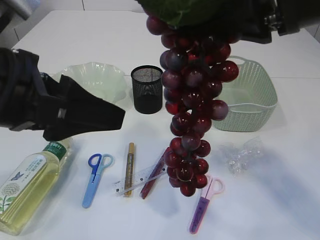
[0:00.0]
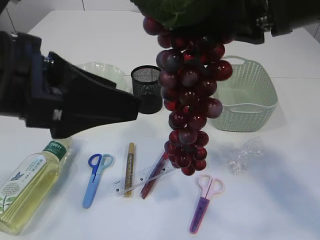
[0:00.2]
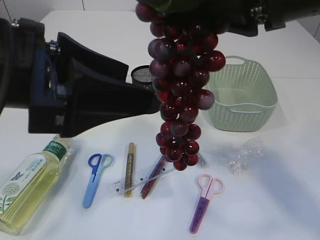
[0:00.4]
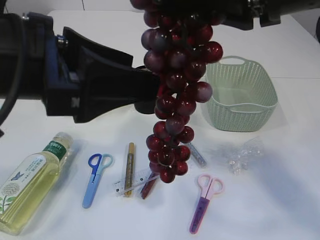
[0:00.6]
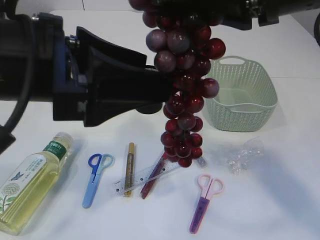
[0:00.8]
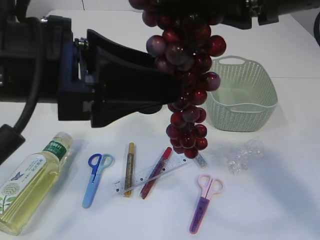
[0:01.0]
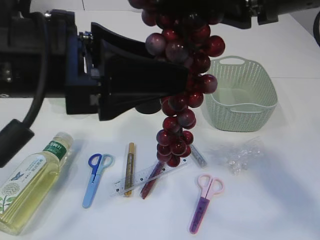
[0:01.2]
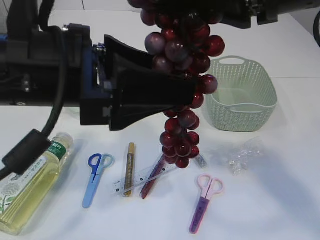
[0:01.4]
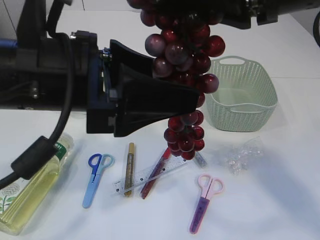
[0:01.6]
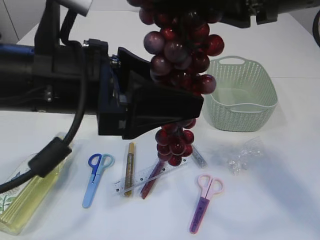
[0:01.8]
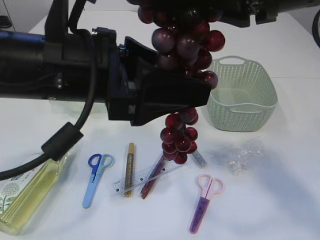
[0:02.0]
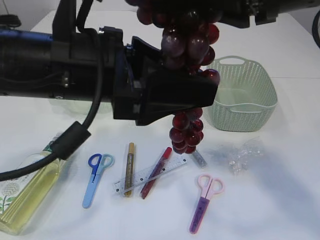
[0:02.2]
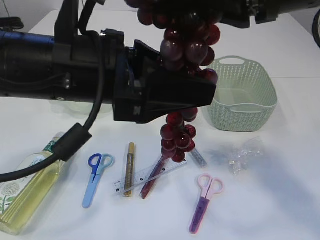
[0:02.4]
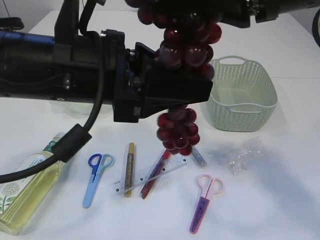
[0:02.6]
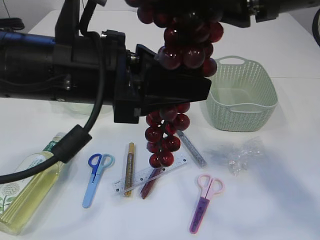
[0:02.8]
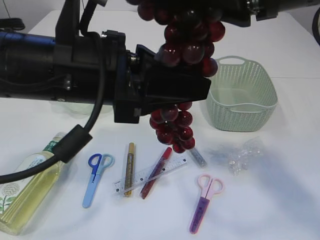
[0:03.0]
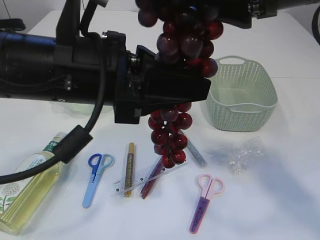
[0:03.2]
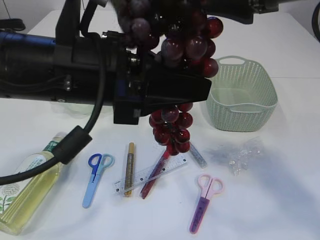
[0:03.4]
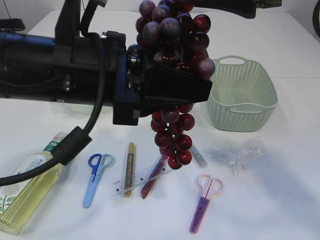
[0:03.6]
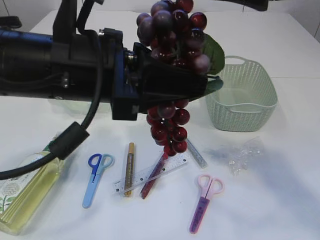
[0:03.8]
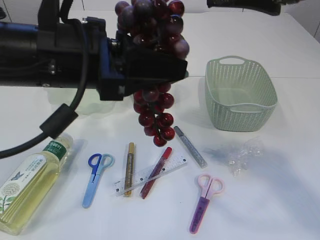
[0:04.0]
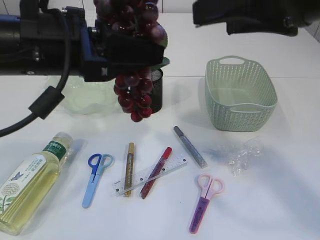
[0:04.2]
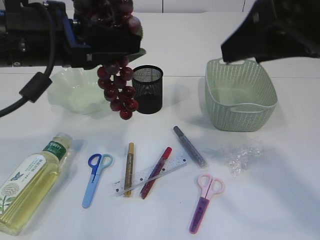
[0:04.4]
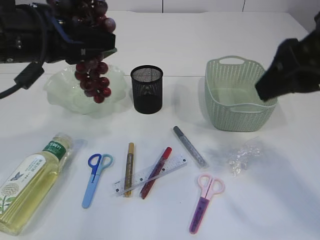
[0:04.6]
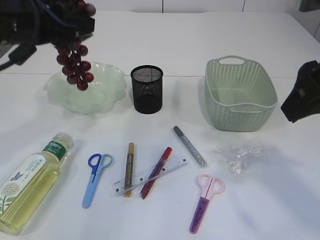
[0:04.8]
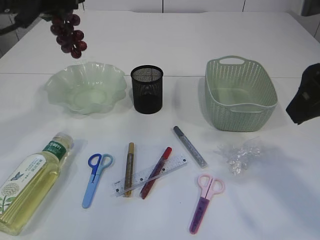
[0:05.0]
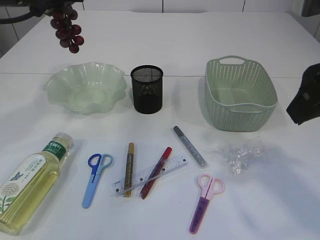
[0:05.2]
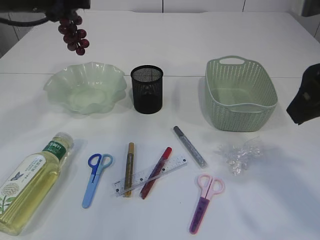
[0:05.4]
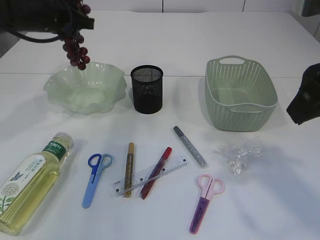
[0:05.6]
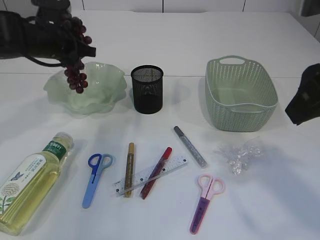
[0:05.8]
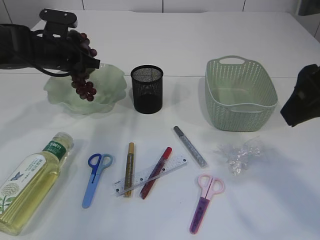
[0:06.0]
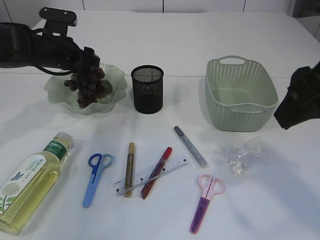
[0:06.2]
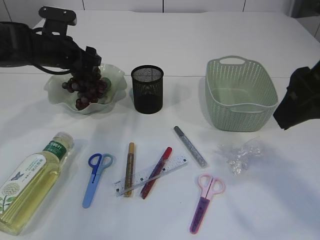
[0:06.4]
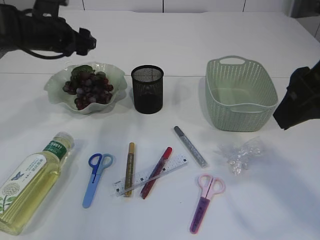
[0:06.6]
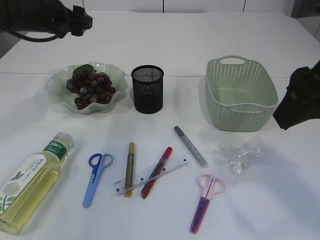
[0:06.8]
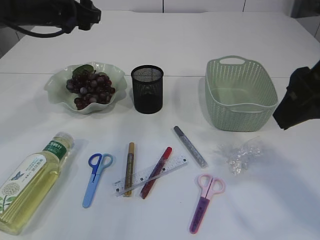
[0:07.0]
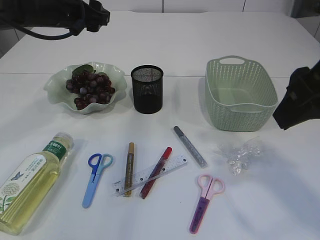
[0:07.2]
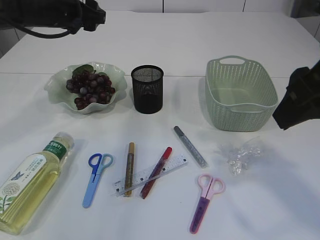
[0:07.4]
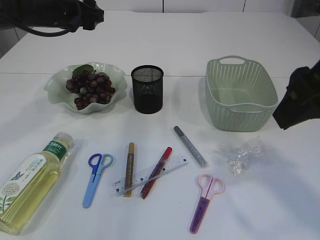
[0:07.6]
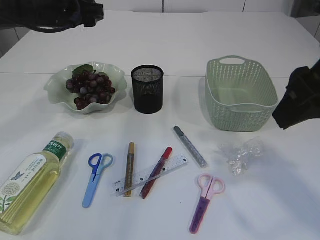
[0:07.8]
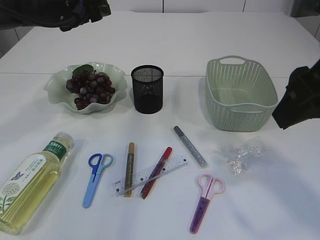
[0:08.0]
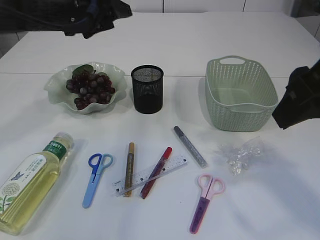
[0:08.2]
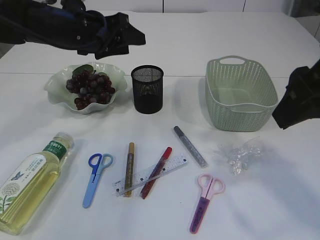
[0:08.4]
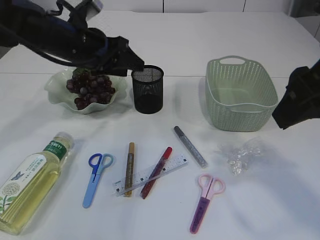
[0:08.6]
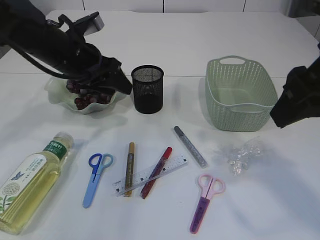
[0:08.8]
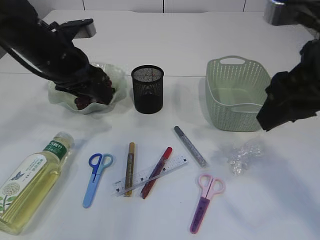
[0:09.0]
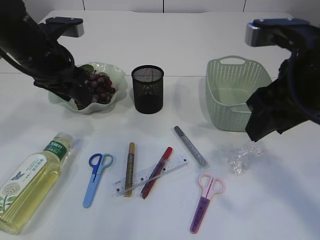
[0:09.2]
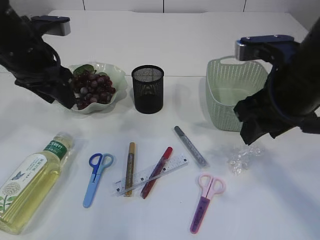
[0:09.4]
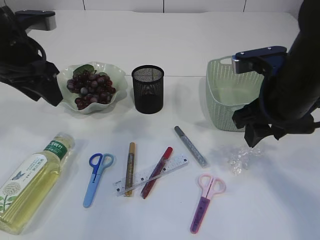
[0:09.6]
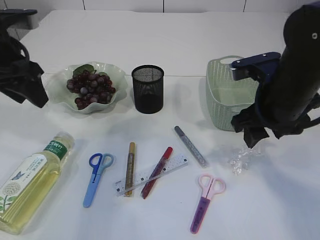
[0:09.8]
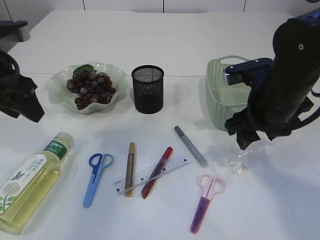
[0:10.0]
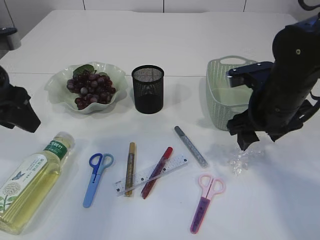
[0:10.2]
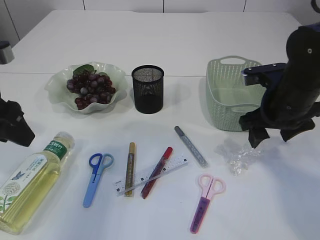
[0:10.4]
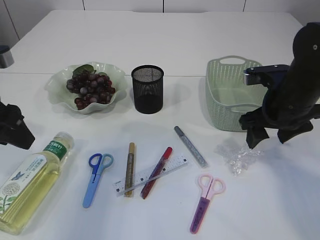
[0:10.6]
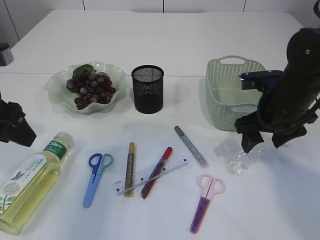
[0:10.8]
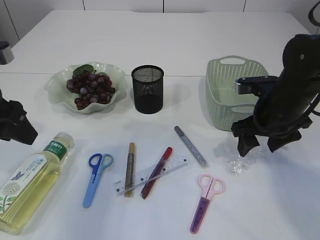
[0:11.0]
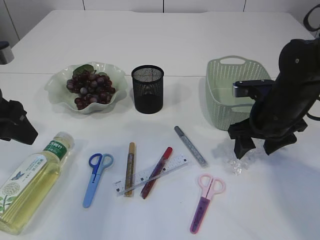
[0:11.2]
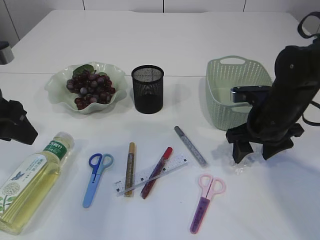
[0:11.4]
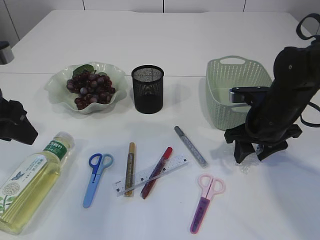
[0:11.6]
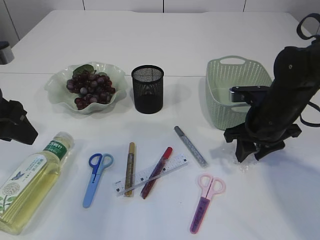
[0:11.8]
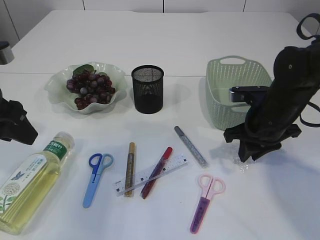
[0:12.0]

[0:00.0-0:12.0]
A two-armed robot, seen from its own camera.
Step, 0.0 to 4.2 s: Hand over the grapes.
Step, 4.4 to 6.8 s: Place the grapes in the plate.
0.0 to 1.6 s: The left gripper moves some 5 cm.
1.6 to 3.0 s: The left gripper closes its fingers.
3.0 to 4.4 s: The left gripper heads to the left, covering about 5 cm; the right gripper changes place by approximately 5 cm, and opens its fingers.
4.4 to 6.0 s: The left gripper travels forward and downward by roughly 25 cm.
6.0 to 7.6 s: The left gripper heads upward, covering some 10 cm, and opens its fingers.
7.6 to 9.0 s: The left gripper shifts approximately 5 cm backward.
9.0 to 10.4 s: The right gripper goes roughly 20 cm downward and forward, while the left gripper moves backward and to the left, approximately 15 cm.
10.4 to 12.0 s: The right gripper changes place by some 5 cm, and closes up.

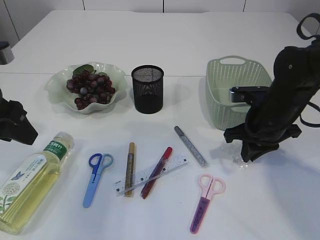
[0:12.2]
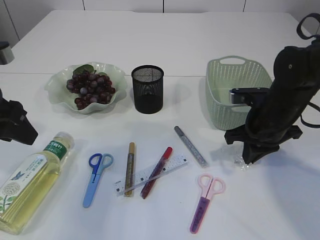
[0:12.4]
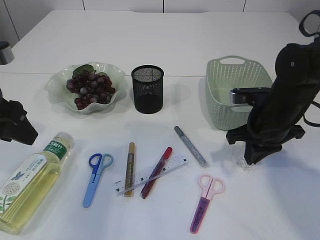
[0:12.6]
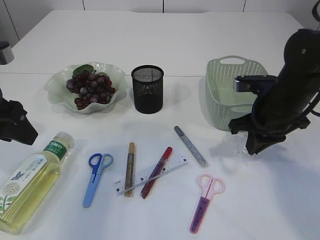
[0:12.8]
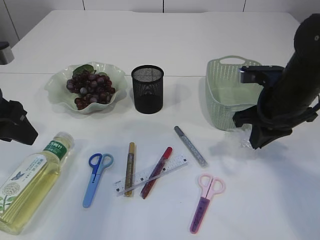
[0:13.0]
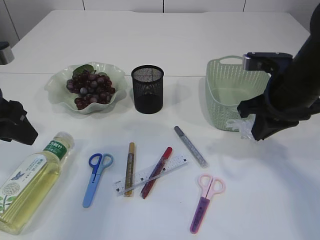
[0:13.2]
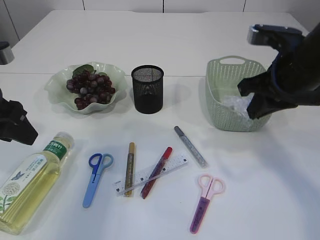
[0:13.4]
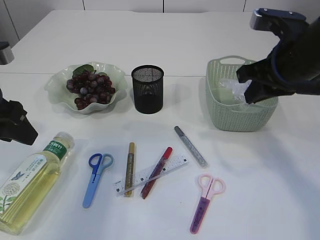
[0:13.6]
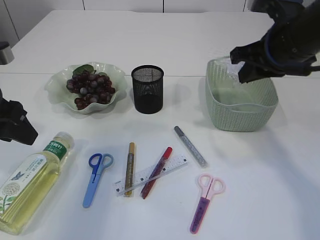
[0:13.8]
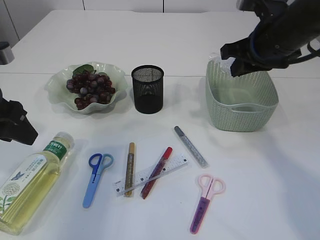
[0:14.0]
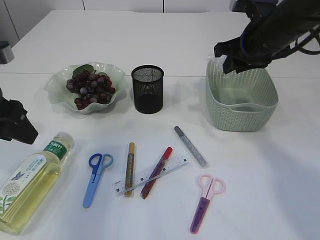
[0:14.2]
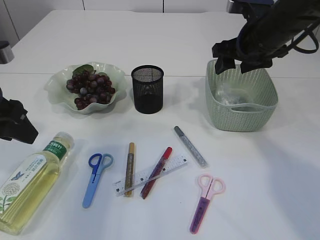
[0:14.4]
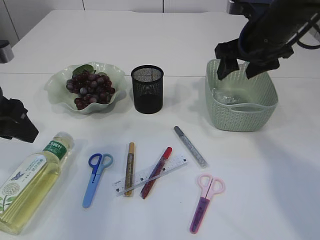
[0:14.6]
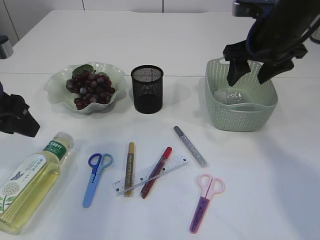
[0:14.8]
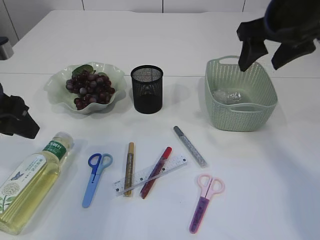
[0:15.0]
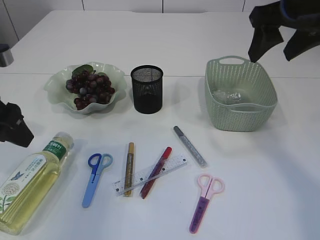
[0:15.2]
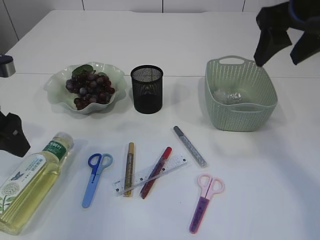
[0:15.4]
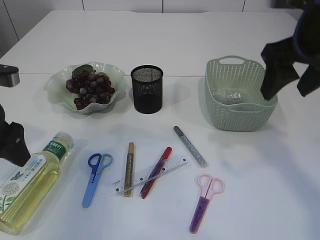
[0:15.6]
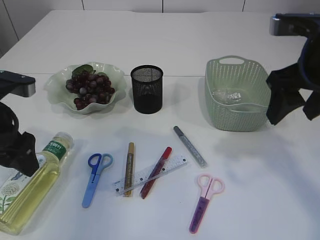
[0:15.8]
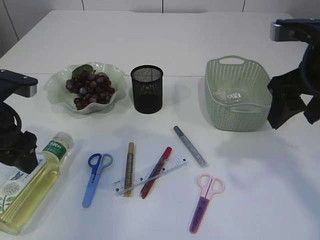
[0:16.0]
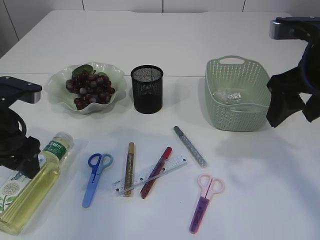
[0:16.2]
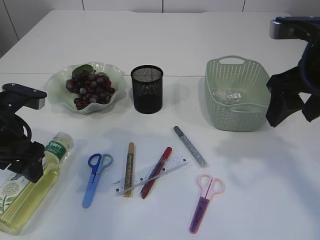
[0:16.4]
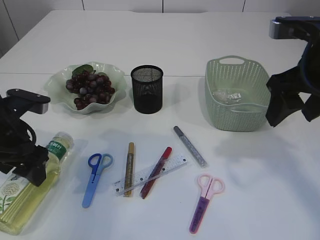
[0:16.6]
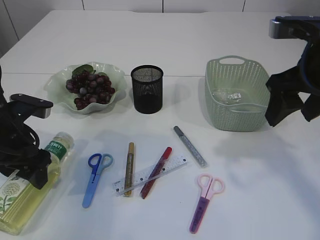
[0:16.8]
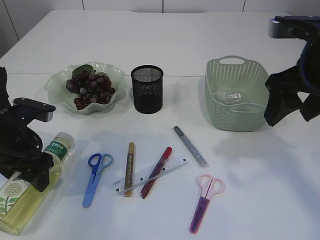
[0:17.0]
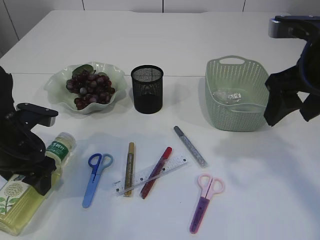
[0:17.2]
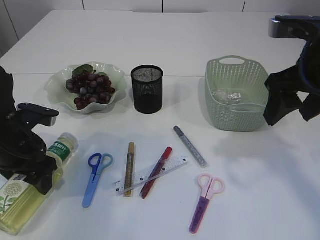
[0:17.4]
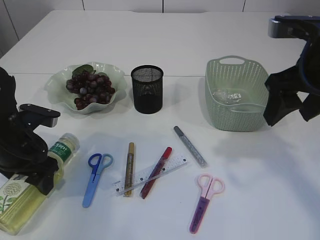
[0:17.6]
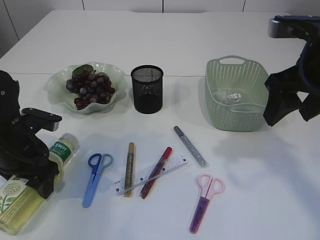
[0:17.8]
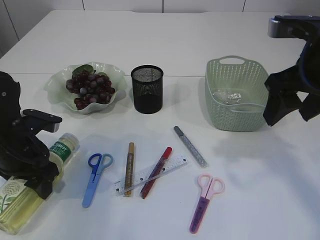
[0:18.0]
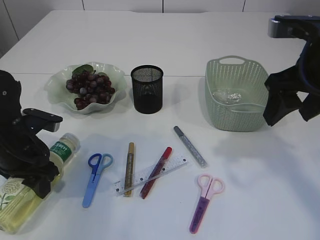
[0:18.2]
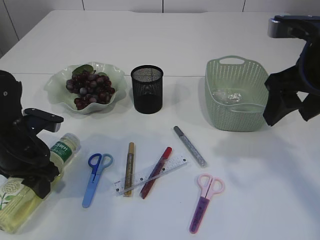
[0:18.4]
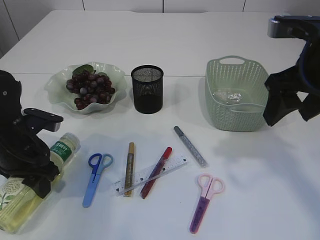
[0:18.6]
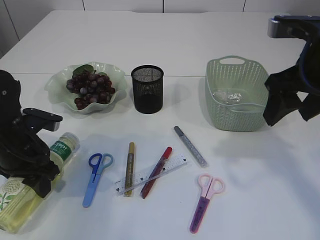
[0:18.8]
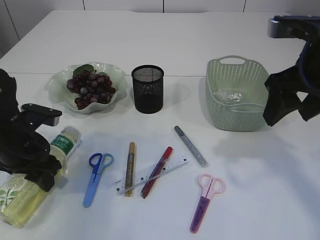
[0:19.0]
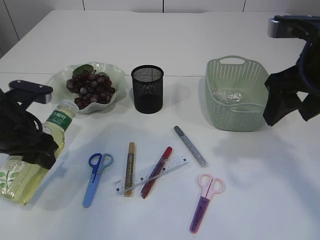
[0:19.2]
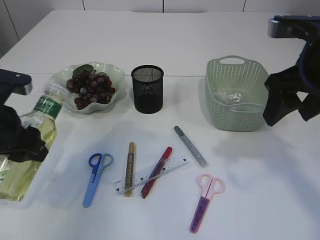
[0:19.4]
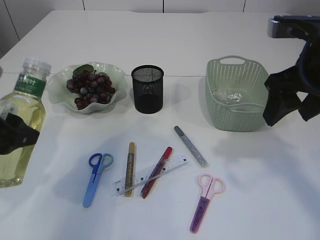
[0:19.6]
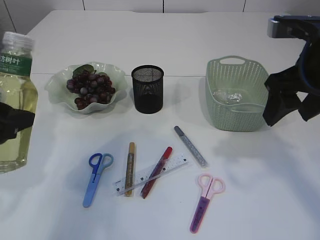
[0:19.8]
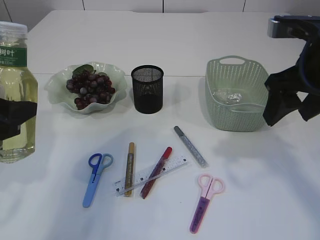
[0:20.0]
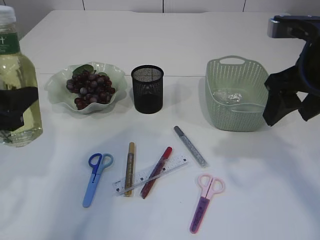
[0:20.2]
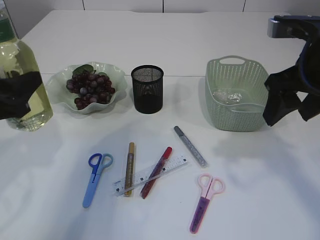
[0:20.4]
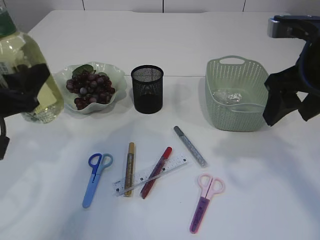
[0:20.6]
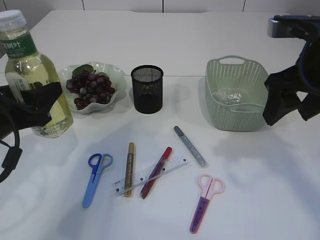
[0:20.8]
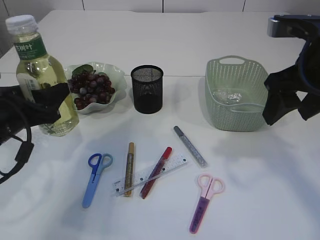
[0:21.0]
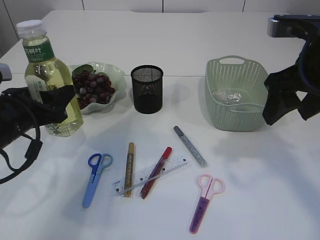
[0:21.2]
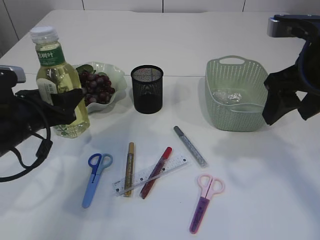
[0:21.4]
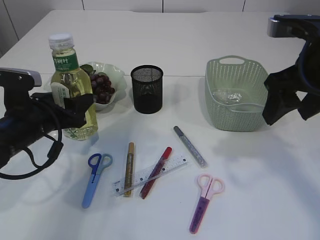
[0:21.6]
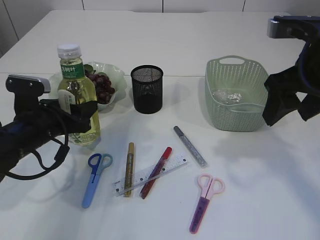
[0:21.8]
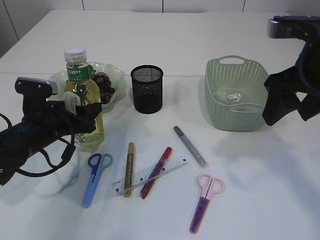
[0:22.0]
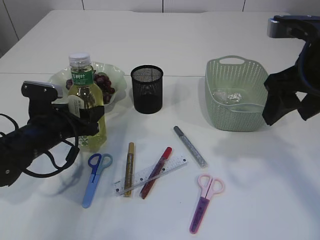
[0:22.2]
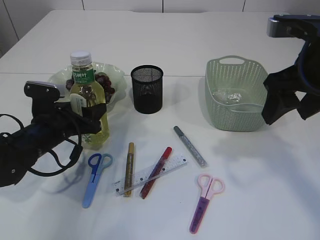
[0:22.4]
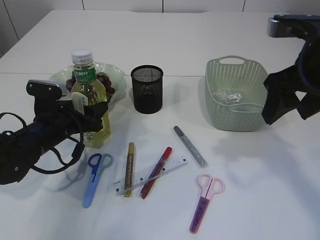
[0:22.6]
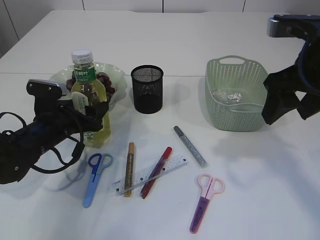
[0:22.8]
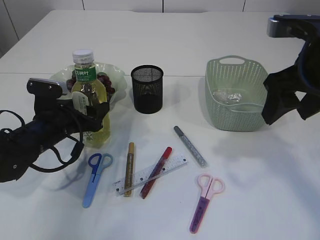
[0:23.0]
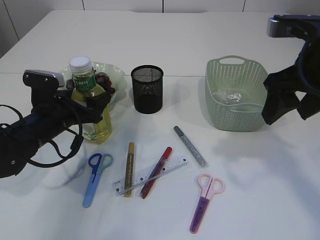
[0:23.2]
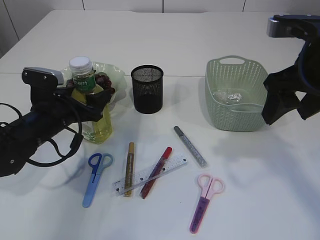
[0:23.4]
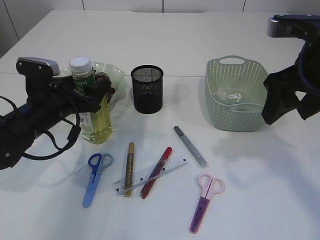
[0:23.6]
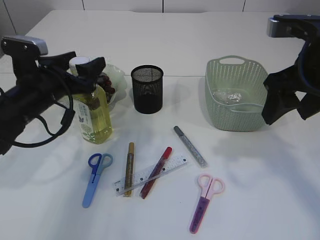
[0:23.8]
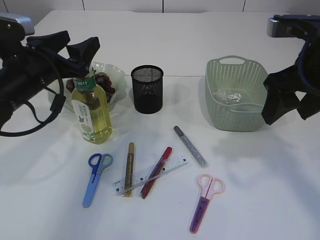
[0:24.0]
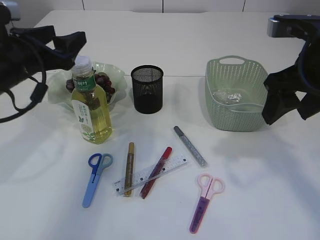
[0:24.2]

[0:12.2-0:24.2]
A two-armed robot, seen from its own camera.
Step, 13.2 to 14.8 s: Place the plastic in the basket.
Step, 15.0 to 19.2 s: Pick up the bottle with the left arm.
Step, 19.4 to 24.0 s: Place the bottle.
12.2 to 13.8 s: The right gripper goes some 15 cm upward.
13.8 to 15.2 s: The right gripper goes some 5 cm upward, and opens up.
15.2 to 16.6 s: The left gripper travels downward by roughly 5 cm, and opens its fingers. Meanwhile the right gripper moves downward and backward, roughly 10 cm.
16.6 to 18.2 s: The left gripper travels downward by approximately 5 cm.
18.2 to 19.8 s: The left gripper goes roughly 15 cm upward and backward.
19.8 to 21.2 s: The left gripper travels downward and forward by about 10 cm.
21.2 to 22.6 s: The left gripper heads downward and forward, covering approximately 10 cm.
22.6 to 24.2 s: The left gripper shifts roughly 15 cm upward.
